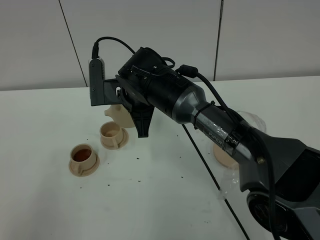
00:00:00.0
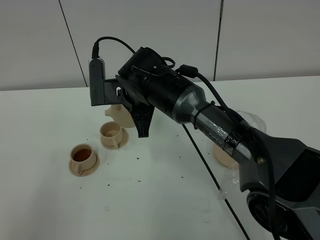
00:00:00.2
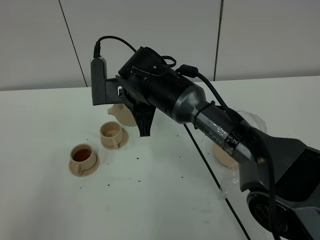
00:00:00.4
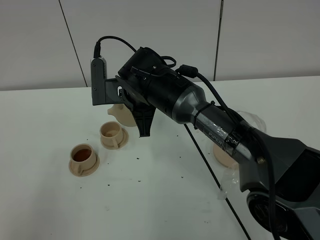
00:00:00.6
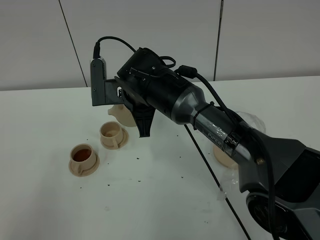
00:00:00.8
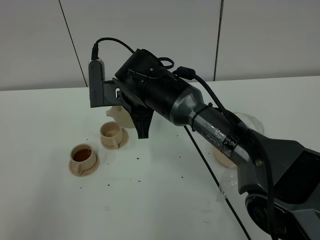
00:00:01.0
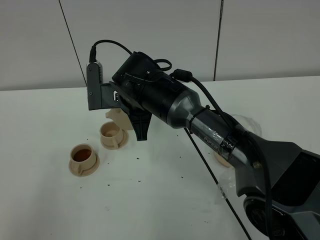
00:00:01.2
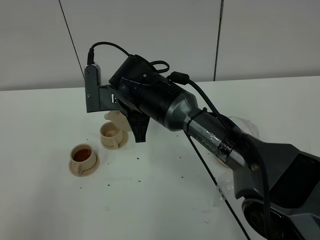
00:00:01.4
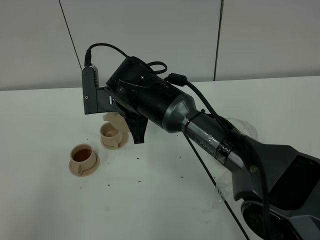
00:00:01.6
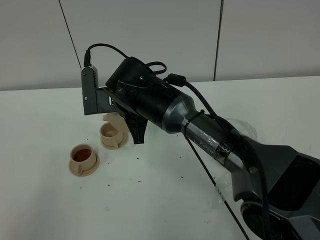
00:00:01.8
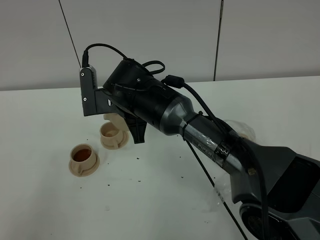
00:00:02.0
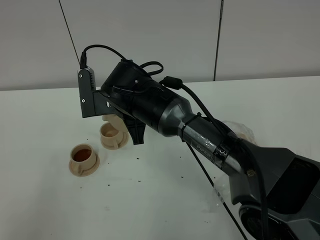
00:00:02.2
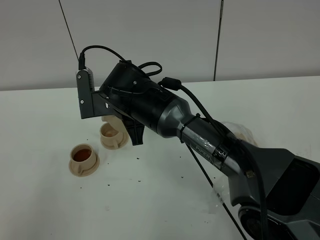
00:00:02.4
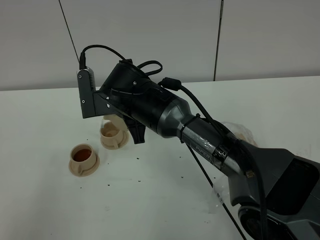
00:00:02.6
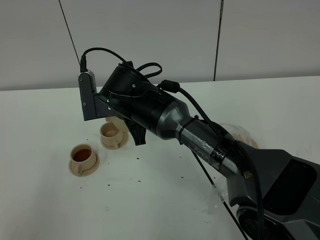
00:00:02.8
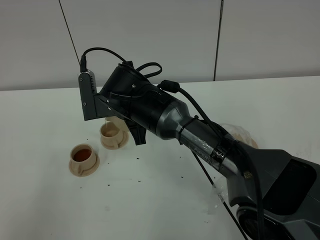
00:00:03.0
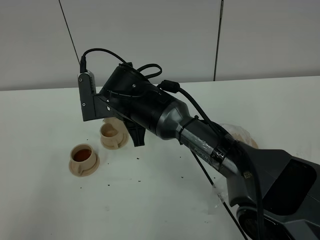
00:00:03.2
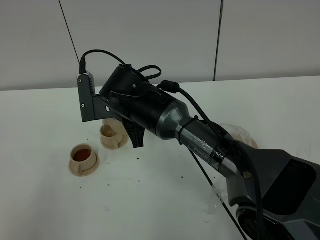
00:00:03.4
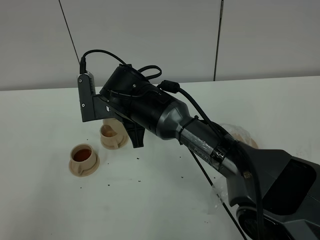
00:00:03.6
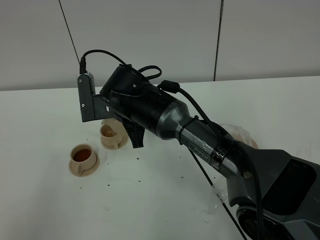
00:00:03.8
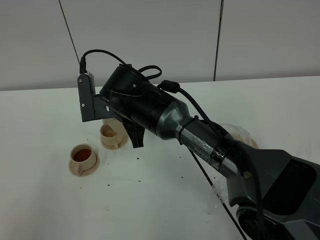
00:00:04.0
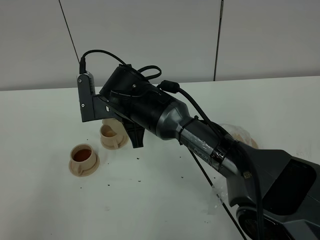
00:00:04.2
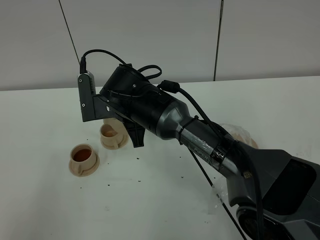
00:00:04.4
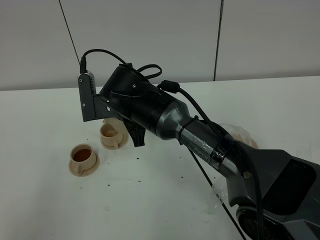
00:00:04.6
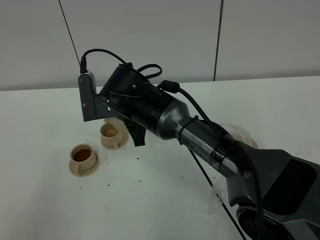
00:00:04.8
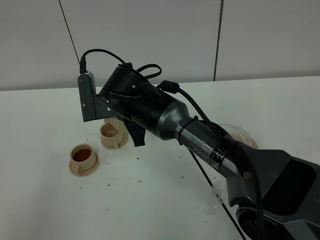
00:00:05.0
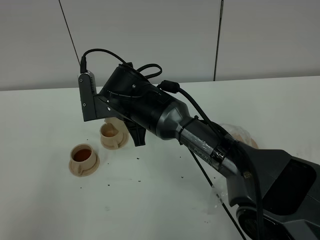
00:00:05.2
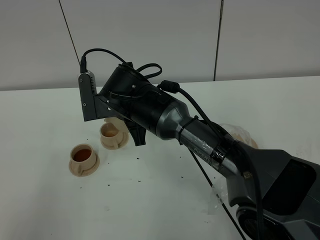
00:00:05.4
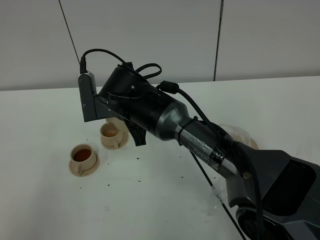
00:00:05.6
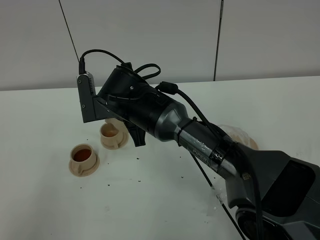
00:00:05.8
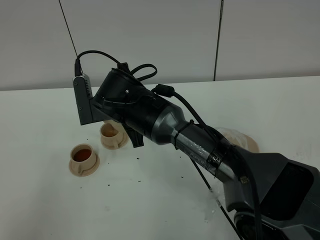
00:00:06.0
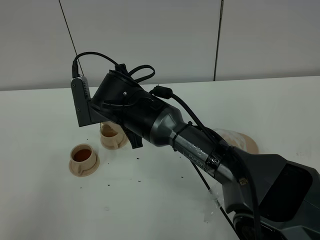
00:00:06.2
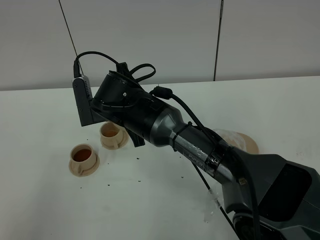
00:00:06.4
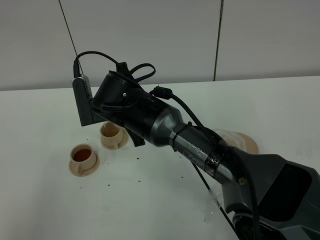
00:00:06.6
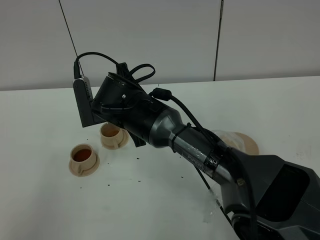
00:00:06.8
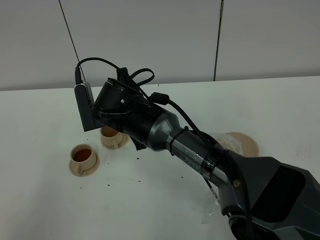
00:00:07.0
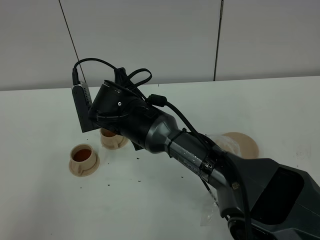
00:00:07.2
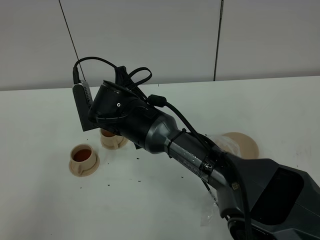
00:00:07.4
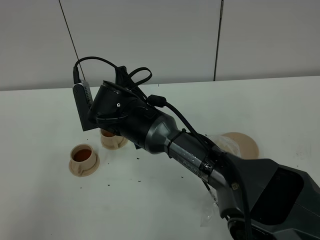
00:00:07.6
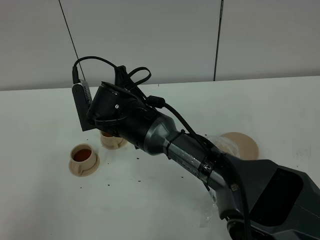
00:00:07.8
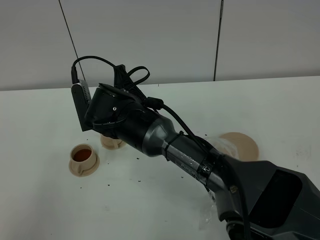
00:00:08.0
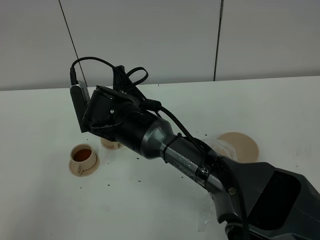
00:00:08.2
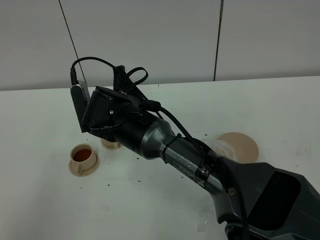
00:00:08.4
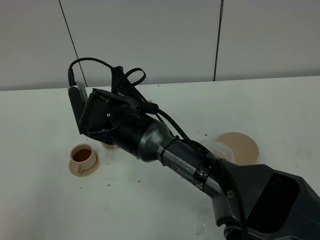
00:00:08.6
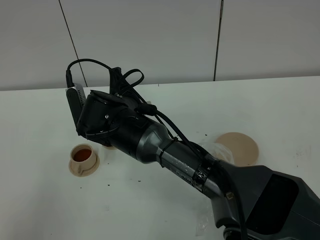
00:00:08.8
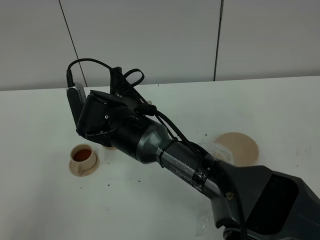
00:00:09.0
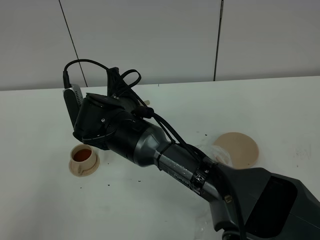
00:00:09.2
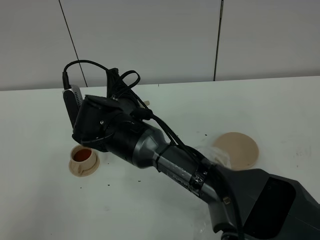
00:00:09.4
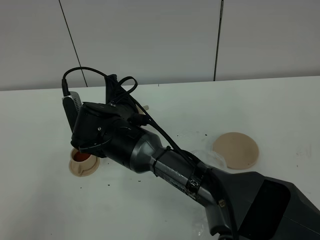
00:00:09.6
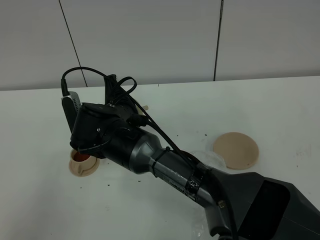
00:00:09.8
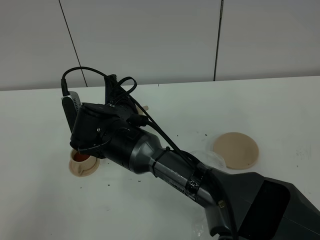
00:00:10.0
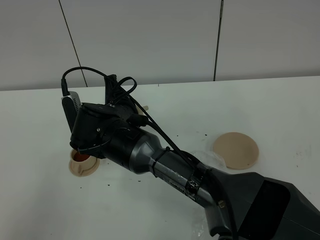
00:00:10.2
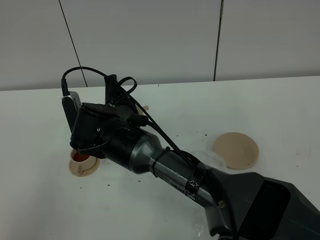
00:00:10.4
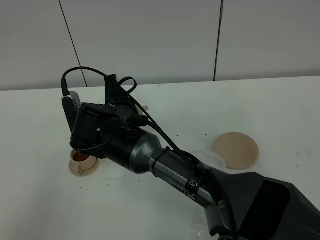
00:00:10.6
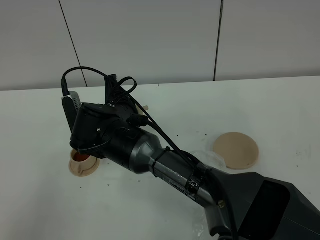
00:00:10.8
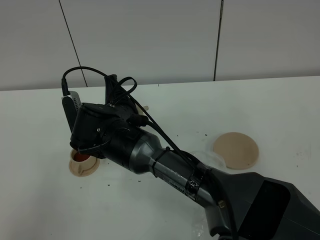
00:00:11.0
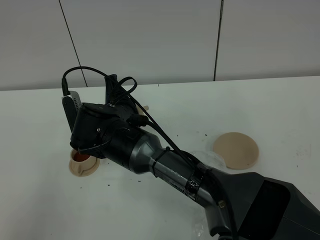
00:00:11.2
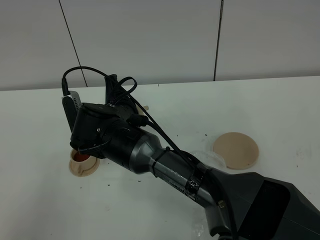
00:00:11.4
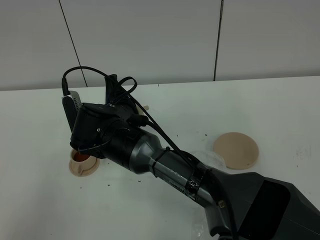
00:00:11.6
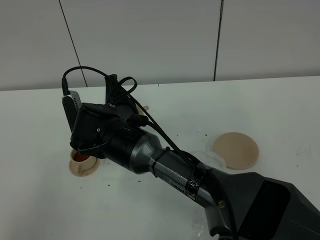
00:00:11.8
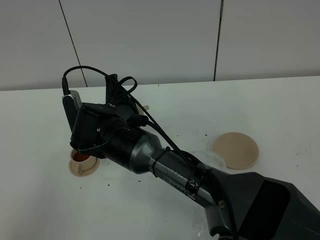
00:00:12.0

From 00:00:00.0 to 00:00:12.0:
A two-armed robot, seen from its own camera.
Task of the whole recording: grasp the brown teapot and pour the tea into the two brown teacups one by one, put the brown teapot back in its original place.
From 00:00:00.0 to 00:00:03.0: The grippers make only small movements.
From 00:00:03.0 to 00:00:06.0: Both grippers stay put.
From 00:00:06.0 to 00:00:10.4: The grippers stay close to where they were, moving slightly.
From 00:00:10.4 to 00:00:12.0: Both grippers stay put.

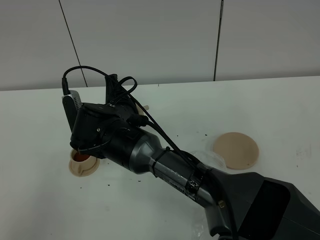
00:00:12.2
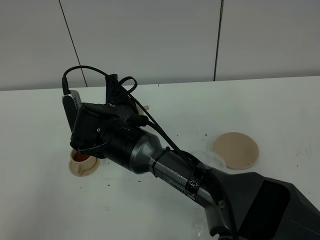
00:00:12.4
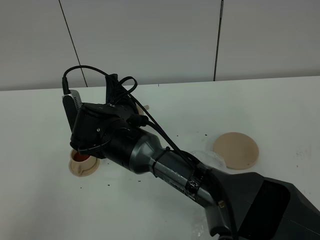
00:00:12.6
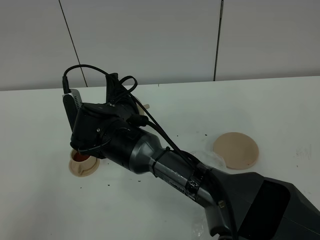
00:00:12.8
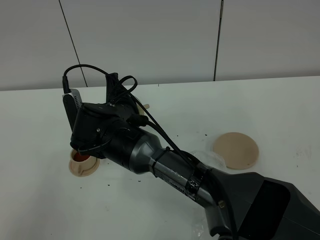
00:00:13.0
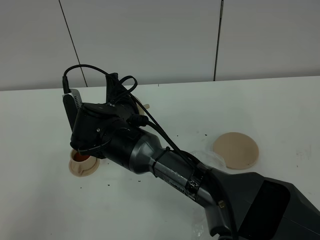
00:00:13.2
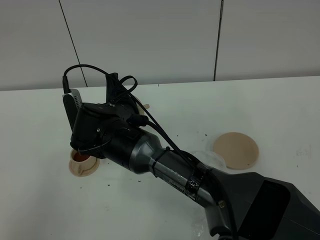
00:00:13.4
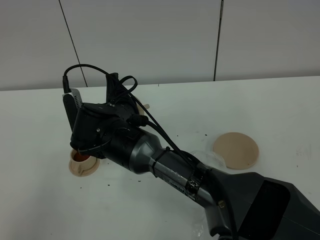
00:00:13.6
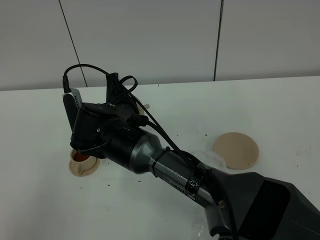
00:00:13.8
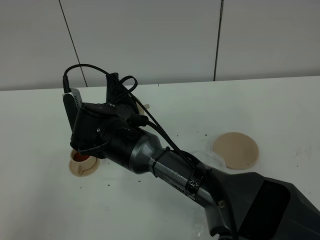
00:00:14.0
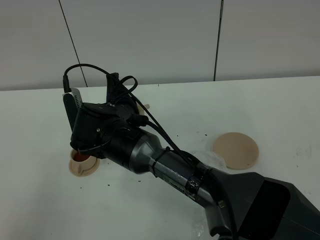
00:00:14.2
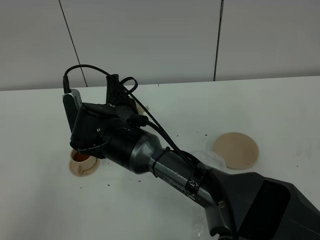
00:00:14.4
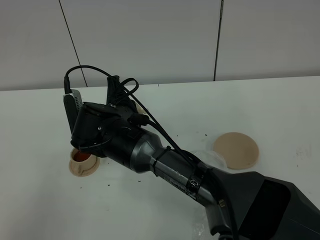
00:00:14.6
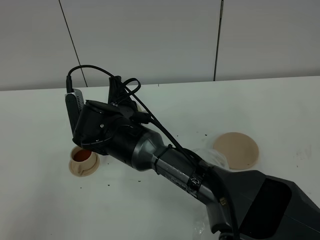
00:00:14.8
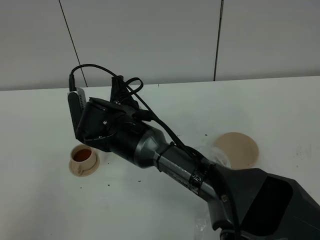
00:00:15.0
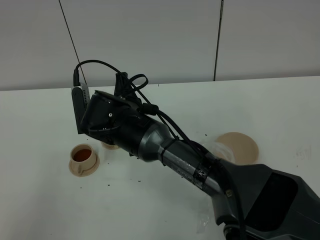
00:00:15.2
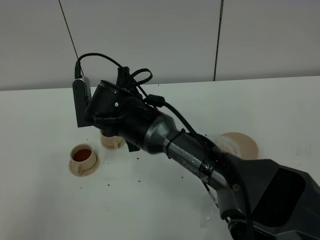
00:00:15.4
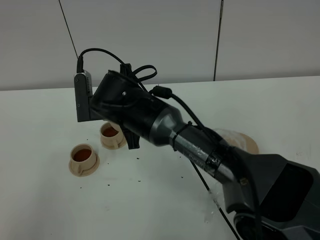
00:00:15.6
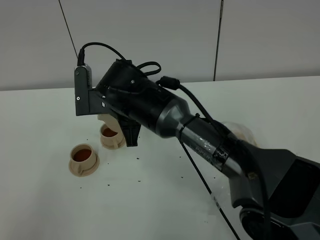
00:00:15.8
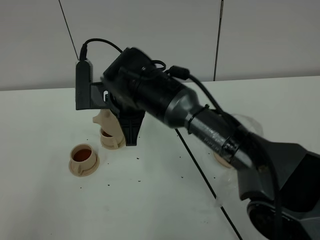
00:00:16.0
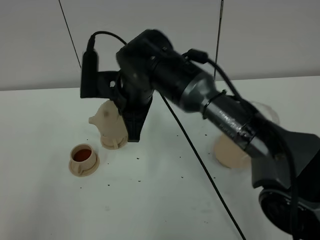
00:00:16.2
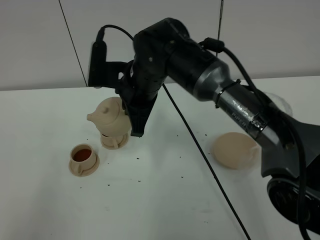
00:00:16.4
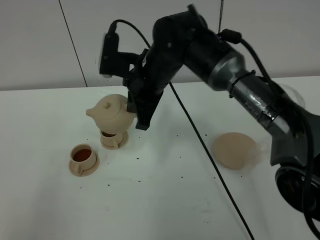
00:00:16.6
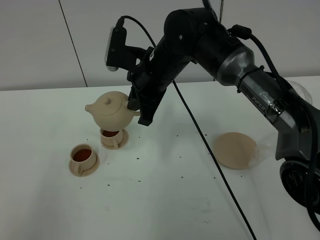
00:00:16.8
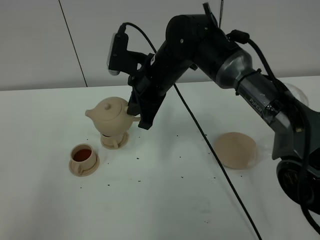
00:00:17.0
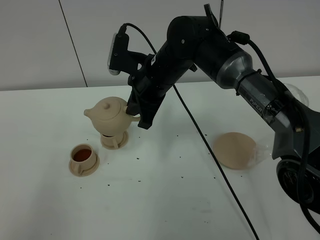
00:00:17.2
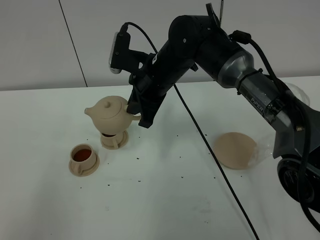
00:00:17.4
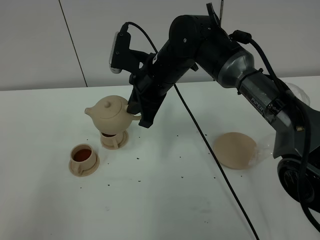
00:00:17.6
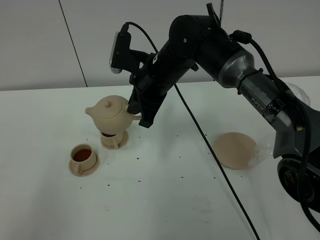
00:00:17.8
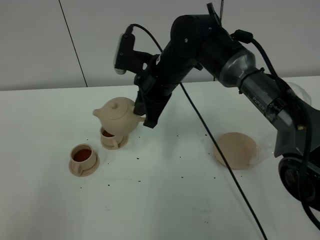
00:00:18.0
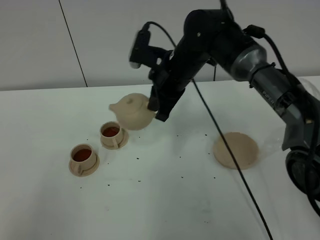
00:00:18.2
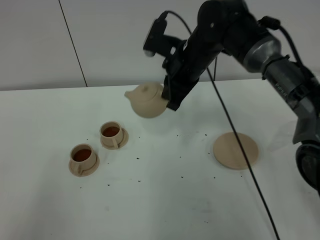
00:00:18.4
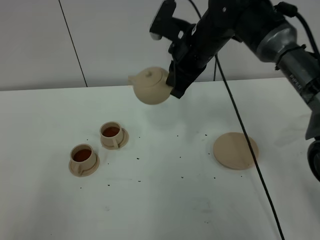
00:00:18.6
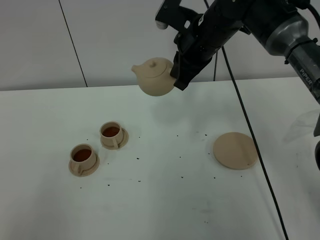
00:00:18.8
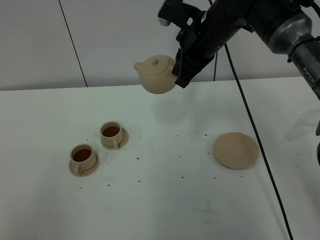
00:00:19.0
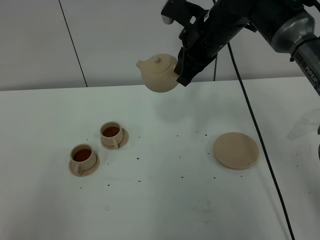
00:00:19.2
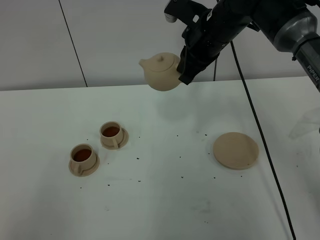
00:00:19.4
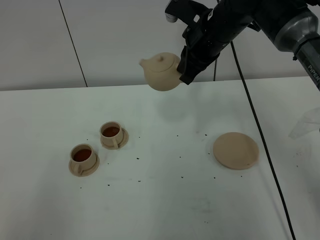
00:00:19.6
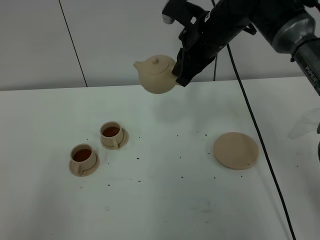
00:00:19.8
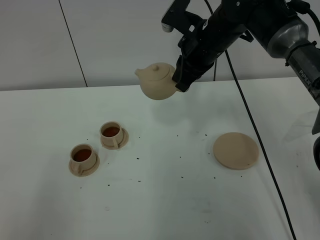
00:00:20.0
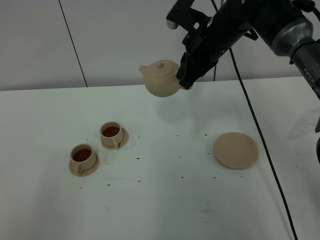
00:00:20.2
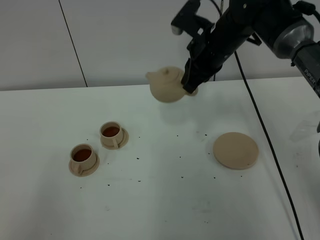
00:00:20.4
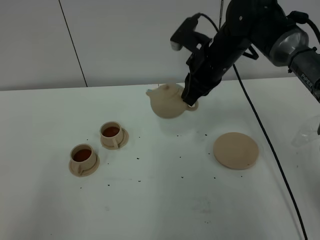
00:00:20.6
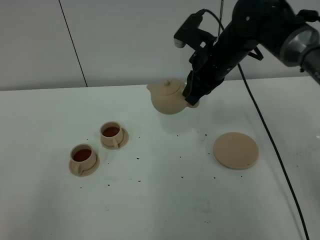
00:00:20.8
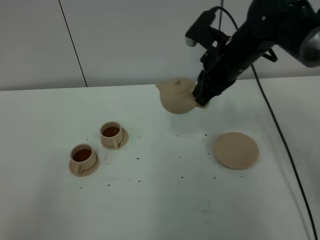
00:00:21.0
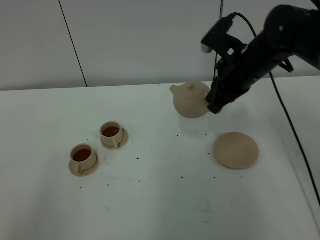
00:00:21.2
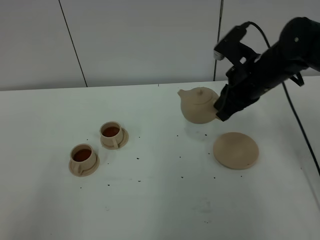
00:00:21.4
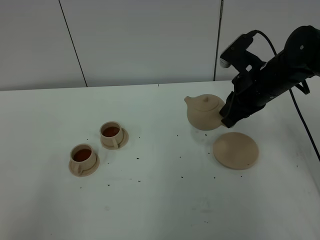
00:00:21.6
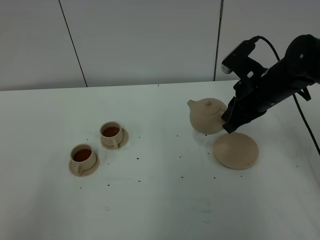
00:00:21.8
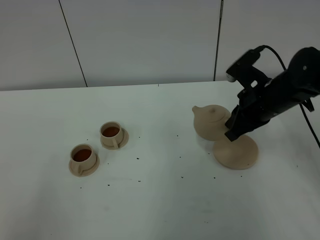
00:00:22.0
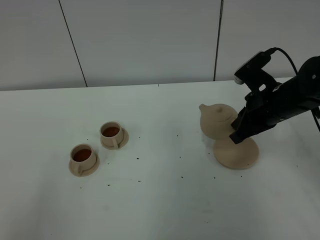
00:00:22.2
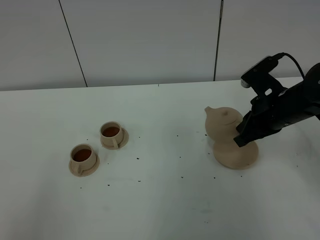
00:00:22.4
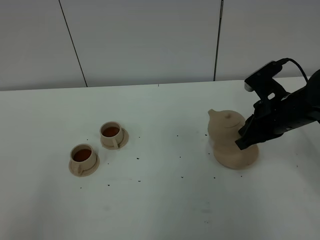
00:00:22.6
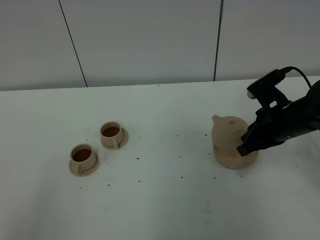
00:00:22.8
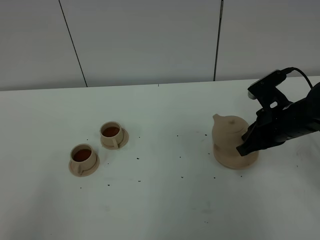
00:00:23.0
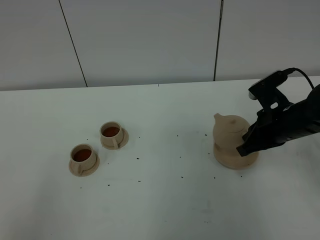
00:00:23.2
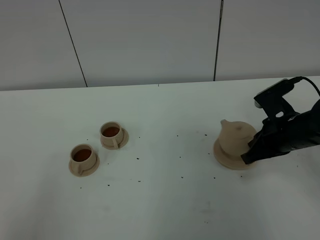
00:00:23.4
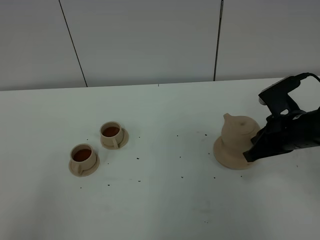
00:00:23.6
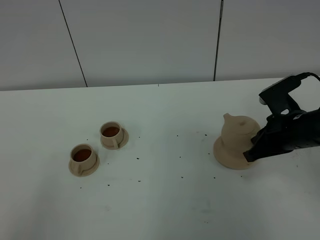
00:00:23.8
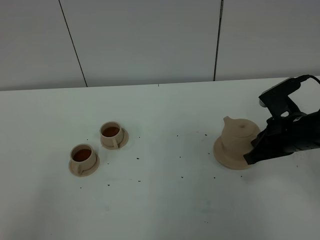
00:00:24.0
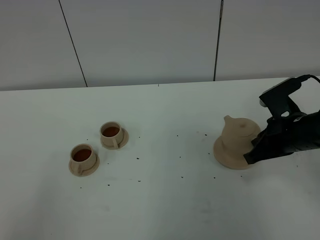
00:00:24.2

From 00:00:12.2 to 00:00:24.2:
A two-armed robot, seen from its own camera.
Task of the whole recording: grasp the brown teapot and pour the tea into the two brown teacups one by one, put the brown teapot back in its original place.
From 00:00:12.2 to 00:00:13.8: Neither gripper changes place.
From 00:00:13.8 to 00:00:15.2: There are only small adjustments of the grippers.
From 00:00:15.2 to 00:00:16.6: The right gripper heads to the right and upward, covering roughly 10 cm.
From 00:00:16.6 to 00:00:18.2: The right gripper moves approximately 5 cm.
From 00:00:18.2 to 00:00:19.8: The right gripper heads to the right and upward, covering roughly 10 cm.
From 00:00:19.8 to 00:00:21.2: The right gripper is displaced to the right by approximately 5 cm.
From 00:00:21.2 to 00:00:22.6: The right gripper shifts approximately 10 cm downward and to the right.
From 00:00:22.6 to 00:00:24.2: There are only small adjustments of the grippers.
